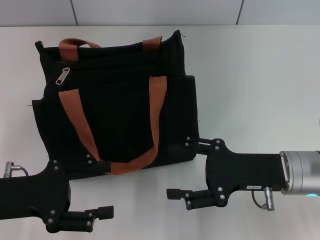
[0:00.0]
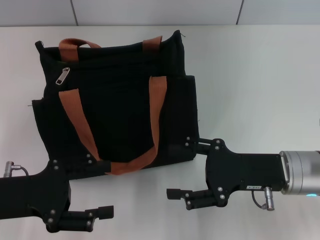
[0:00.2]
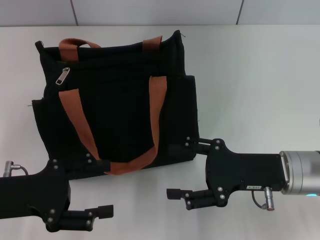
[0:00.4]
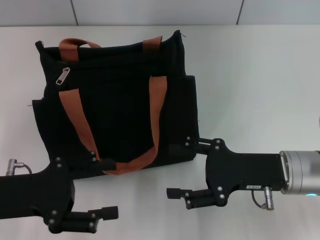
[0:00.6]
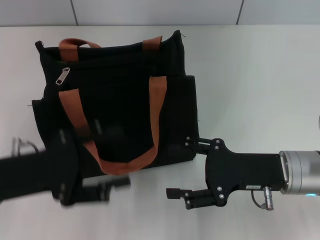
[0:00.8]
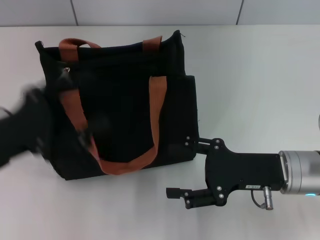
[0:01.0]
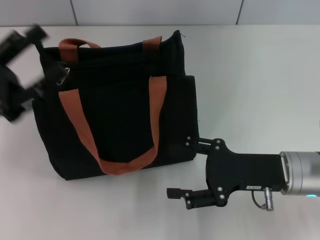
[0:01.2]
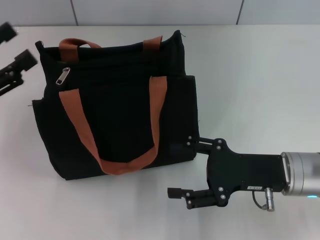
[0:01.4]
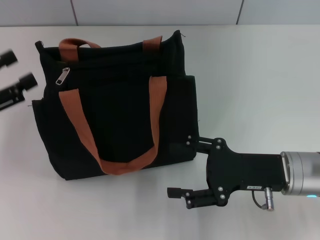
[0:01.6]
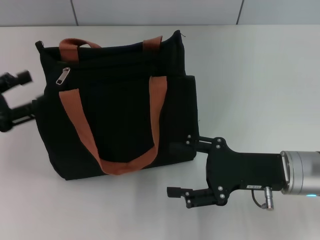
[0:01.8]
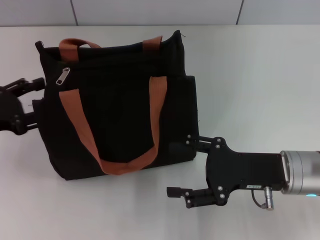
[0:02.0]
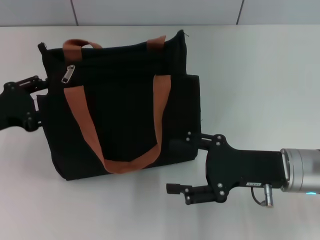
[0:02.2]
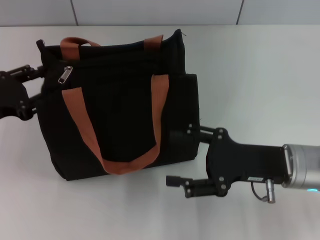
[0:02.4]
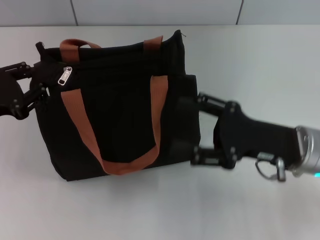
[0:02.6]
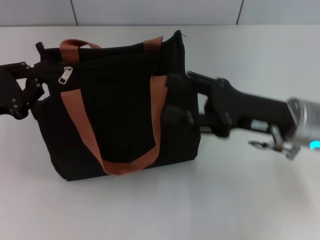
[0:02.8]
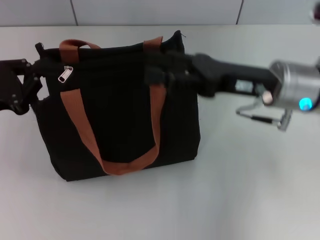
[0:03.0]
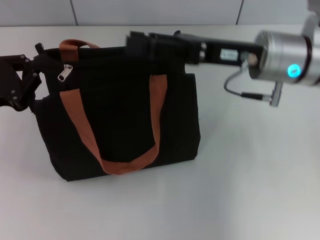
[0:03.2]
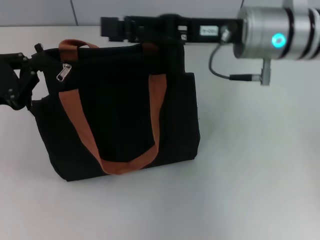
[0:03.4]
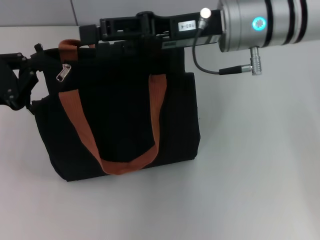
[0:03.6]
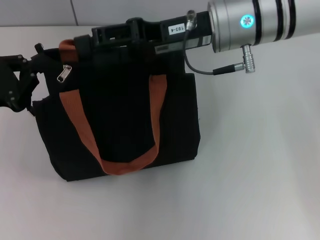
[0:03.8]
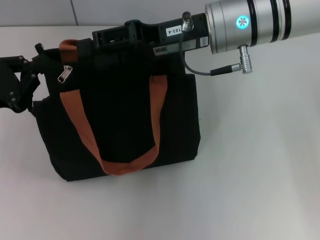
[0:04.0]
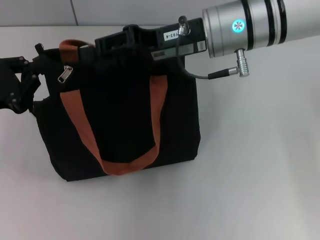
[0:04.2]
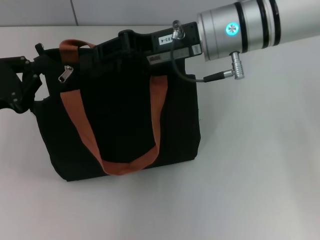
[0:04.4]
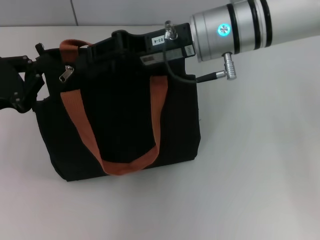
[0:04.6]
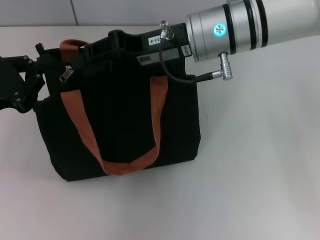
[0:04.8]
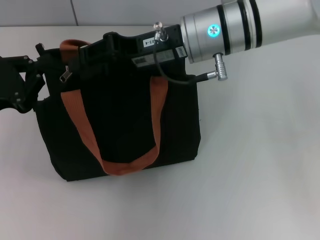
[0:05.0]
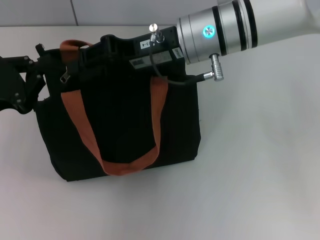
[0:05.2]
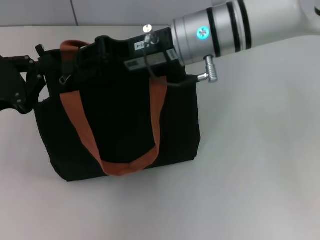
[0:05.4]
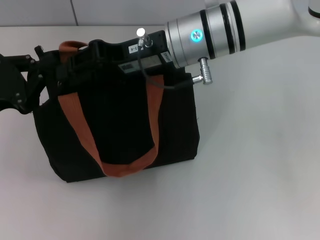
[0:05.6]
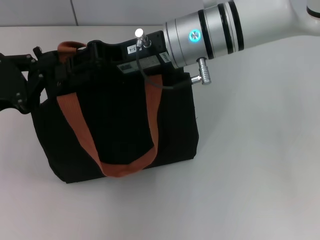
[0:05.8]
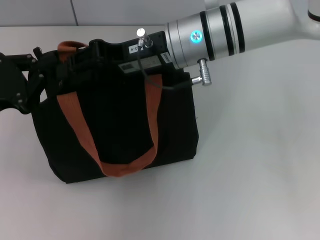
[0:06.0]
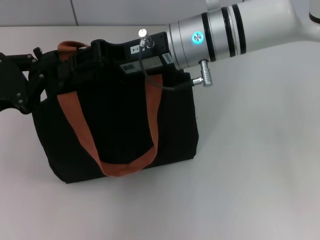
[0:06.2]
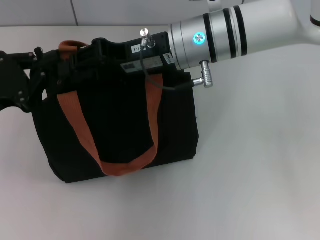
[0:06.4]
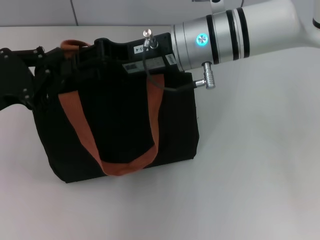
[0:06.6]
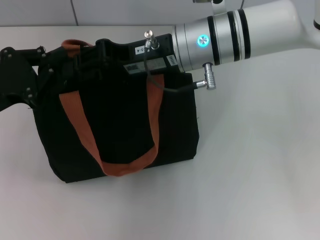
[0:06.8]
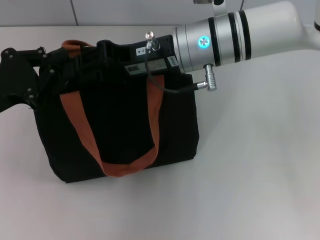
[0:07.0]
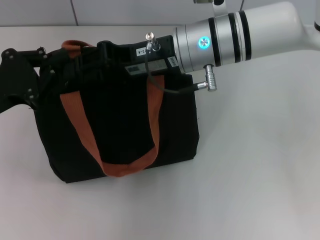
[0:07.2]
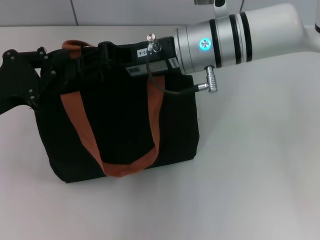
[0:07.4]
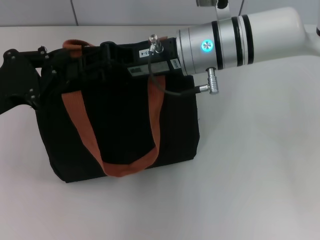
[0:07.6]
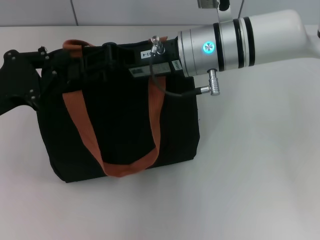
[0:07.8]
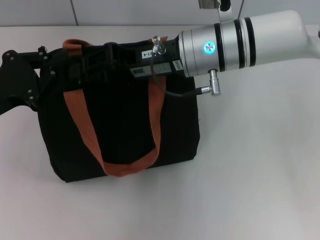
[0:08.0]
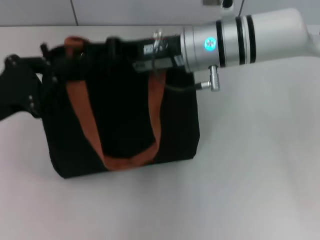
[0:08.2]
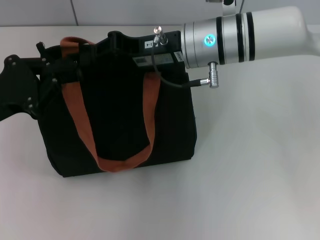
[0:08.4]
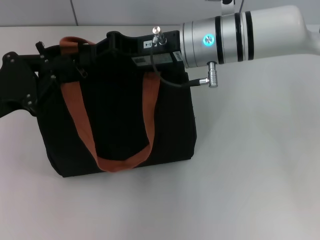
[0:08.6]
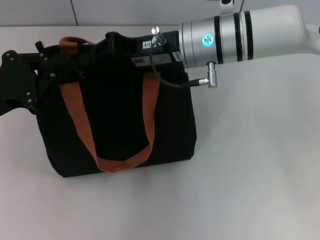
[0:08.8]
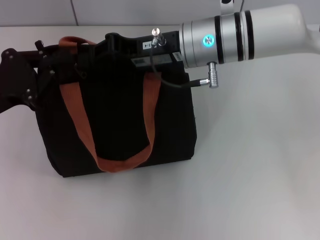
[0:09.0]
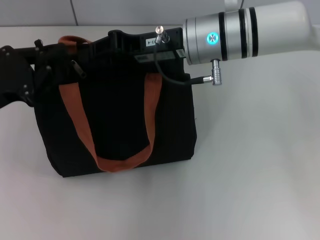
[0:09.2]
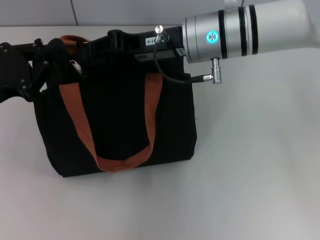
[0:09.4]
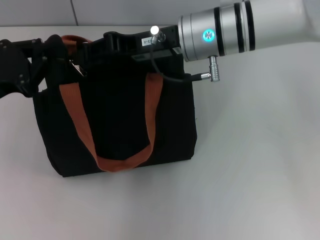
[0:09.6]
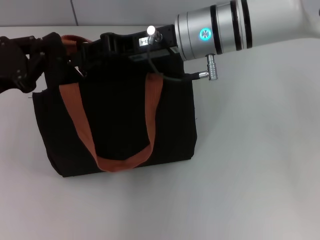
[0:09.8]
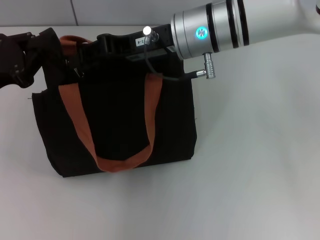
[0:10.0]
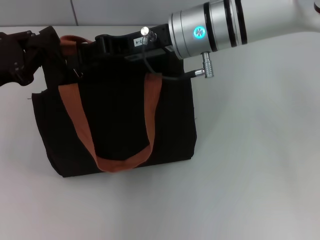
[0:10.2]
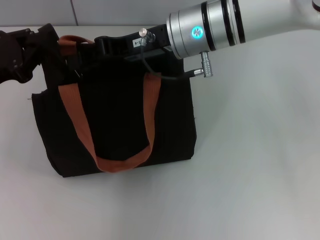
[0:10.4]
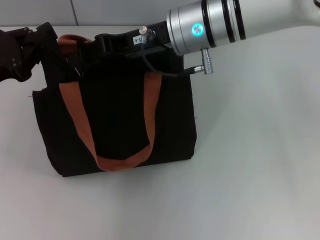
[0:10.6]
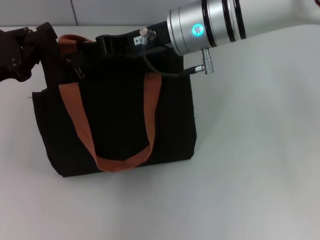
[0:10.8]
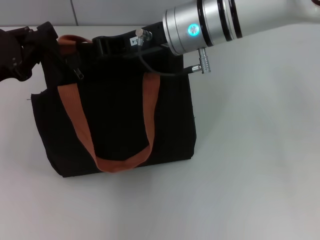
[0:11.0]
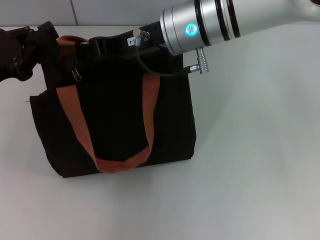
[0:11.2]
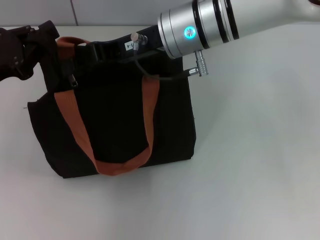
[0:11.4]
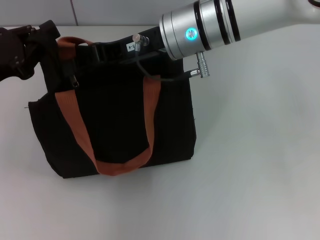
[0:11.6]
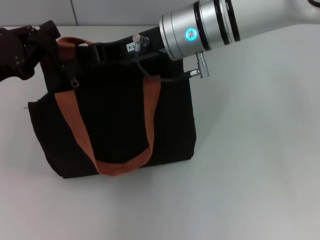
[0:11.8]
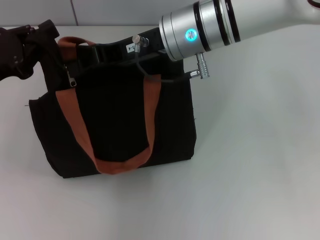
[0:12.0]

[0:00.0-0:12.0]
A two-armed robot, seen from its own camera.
0:00.0 to 0:01.6: The left gripper travels to the left by roughly 5 cm.
0:01.6 to 0:03.0: The right gripper goes some 10 cm upward and forward. Meanwhile the left gripper closes its fingers.
0:03.0 to 0:04.4: The right gripper travels to the left and forward by roughly 10 cm, and closes.
0:04.4 to 0:07.6: The grippers make only small movements.
0:07.6 to 0:09.0: Neither gripper changes place.
0:09.0 to 0:12.0: There are only small adjustments of the grippers.

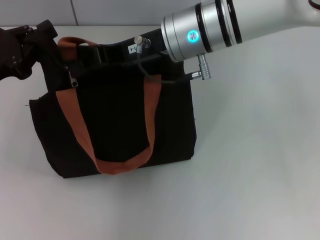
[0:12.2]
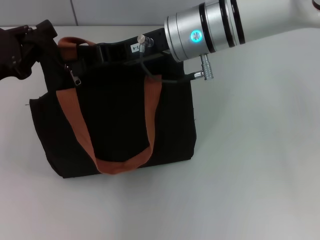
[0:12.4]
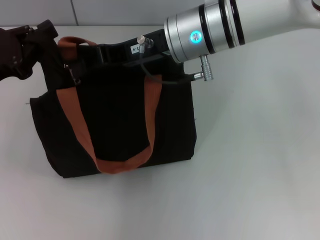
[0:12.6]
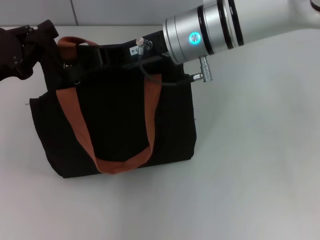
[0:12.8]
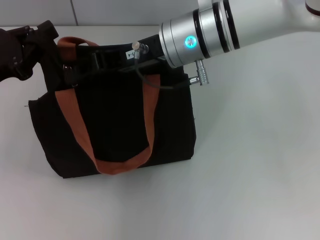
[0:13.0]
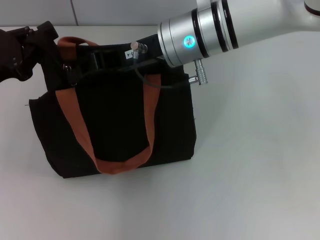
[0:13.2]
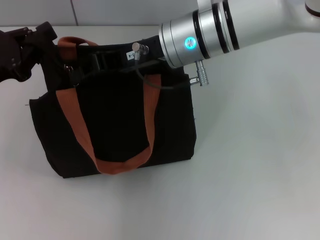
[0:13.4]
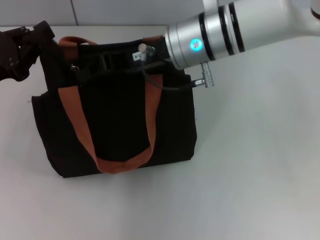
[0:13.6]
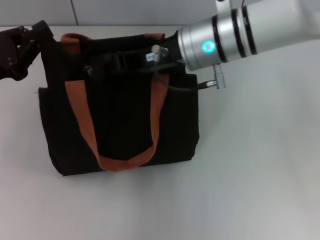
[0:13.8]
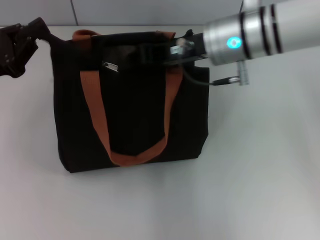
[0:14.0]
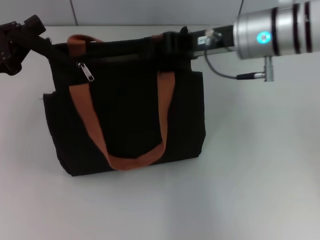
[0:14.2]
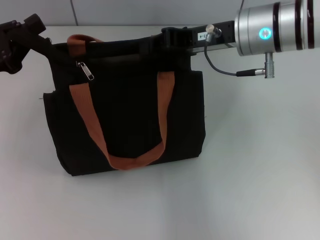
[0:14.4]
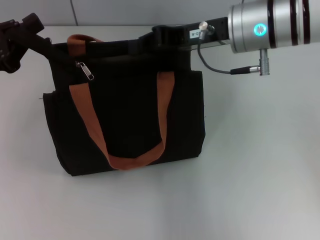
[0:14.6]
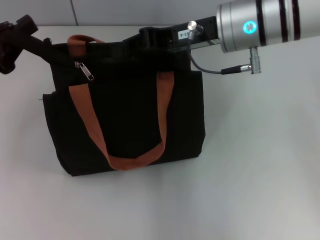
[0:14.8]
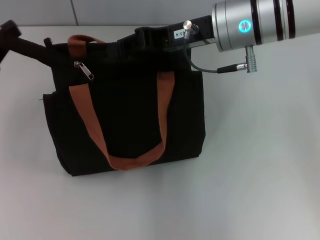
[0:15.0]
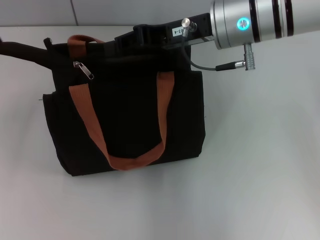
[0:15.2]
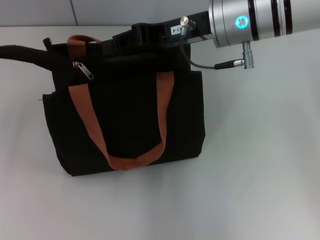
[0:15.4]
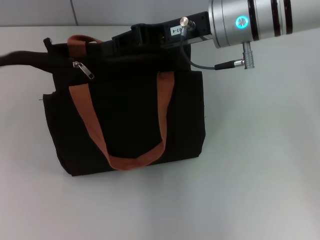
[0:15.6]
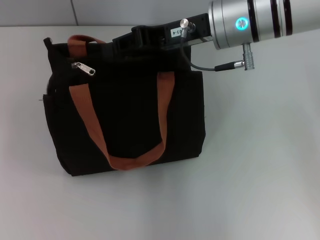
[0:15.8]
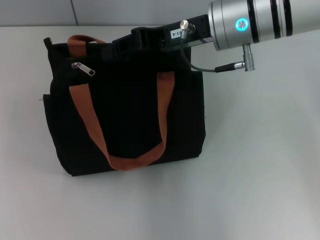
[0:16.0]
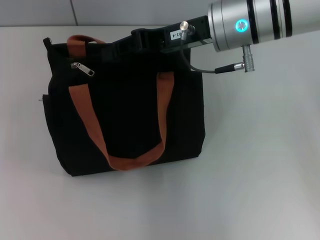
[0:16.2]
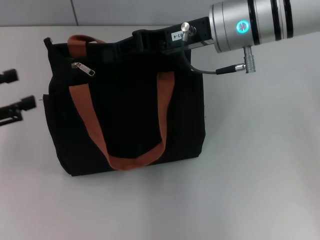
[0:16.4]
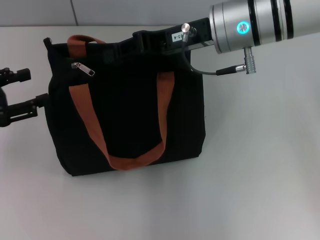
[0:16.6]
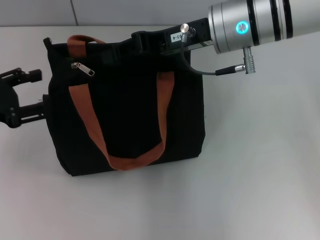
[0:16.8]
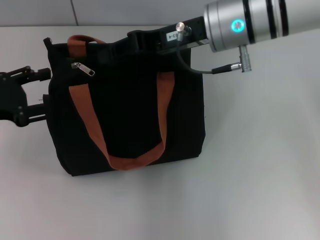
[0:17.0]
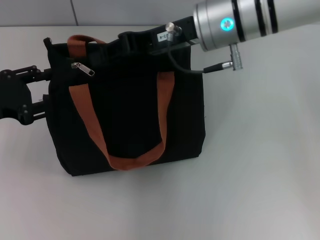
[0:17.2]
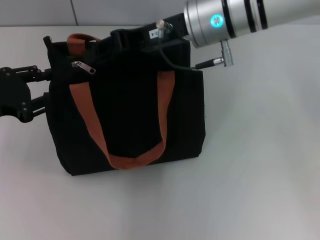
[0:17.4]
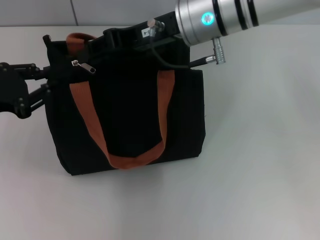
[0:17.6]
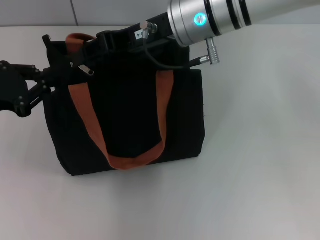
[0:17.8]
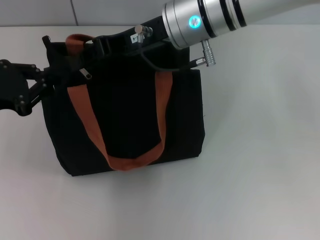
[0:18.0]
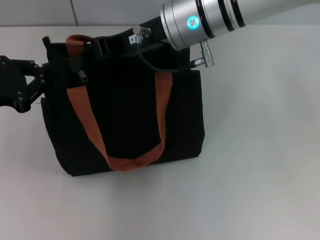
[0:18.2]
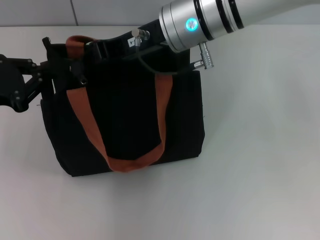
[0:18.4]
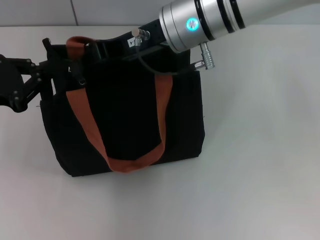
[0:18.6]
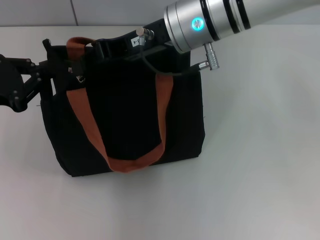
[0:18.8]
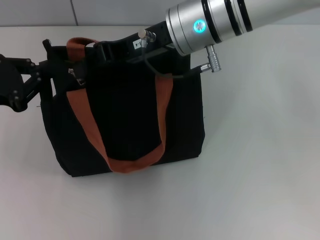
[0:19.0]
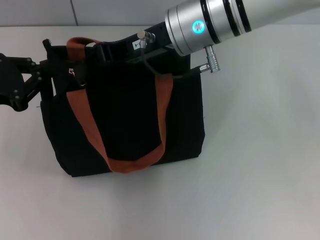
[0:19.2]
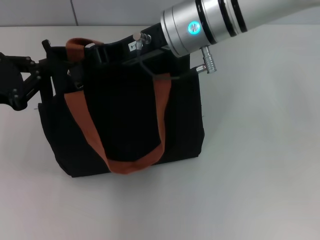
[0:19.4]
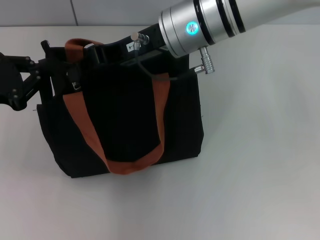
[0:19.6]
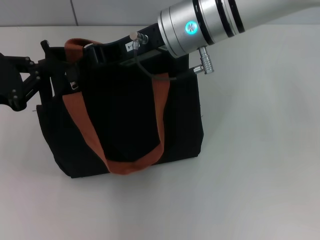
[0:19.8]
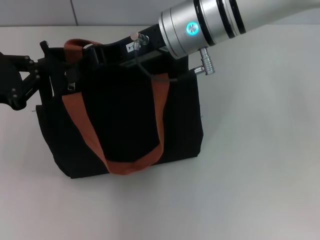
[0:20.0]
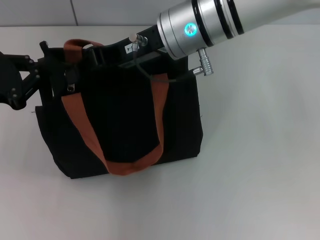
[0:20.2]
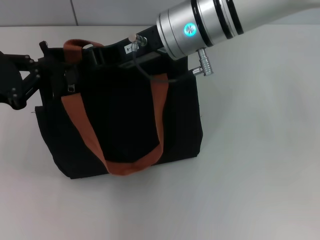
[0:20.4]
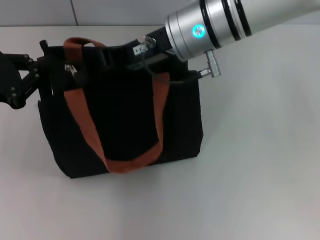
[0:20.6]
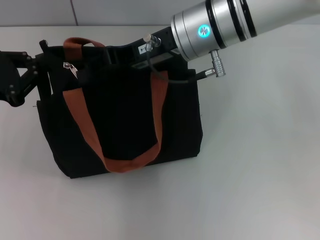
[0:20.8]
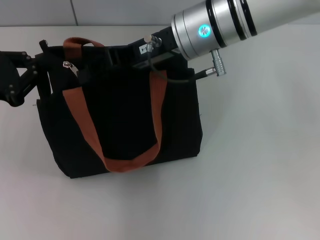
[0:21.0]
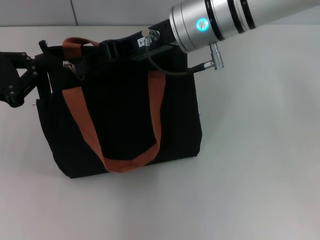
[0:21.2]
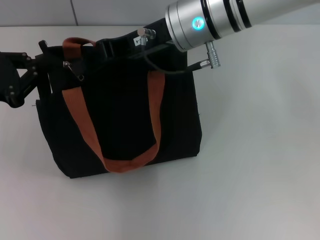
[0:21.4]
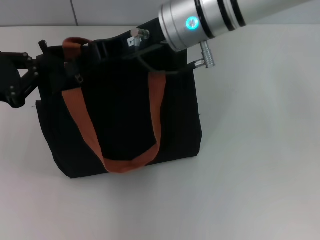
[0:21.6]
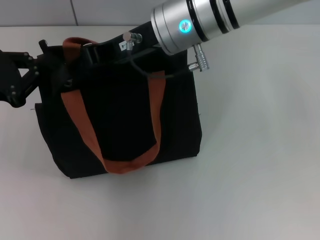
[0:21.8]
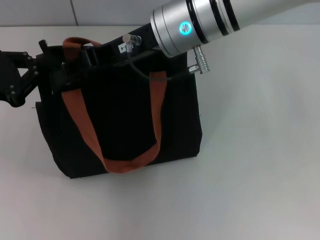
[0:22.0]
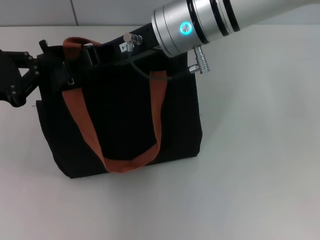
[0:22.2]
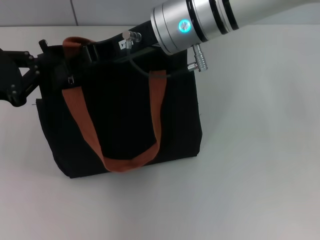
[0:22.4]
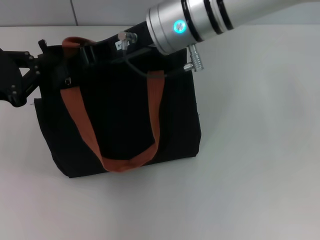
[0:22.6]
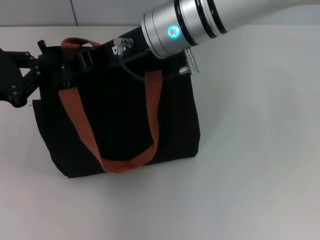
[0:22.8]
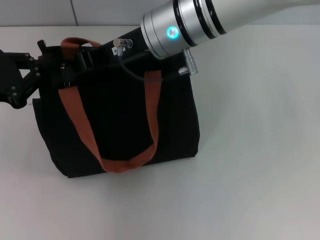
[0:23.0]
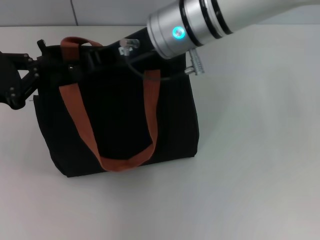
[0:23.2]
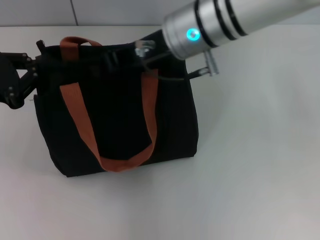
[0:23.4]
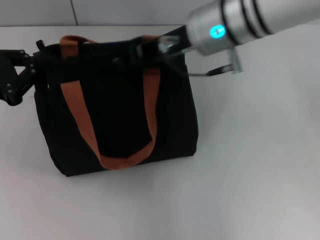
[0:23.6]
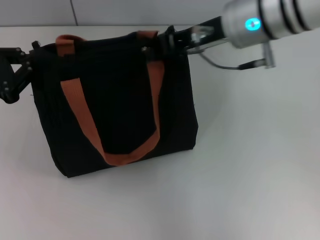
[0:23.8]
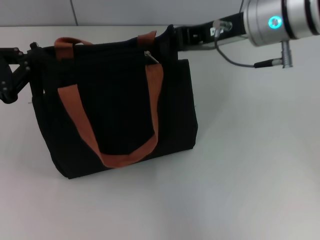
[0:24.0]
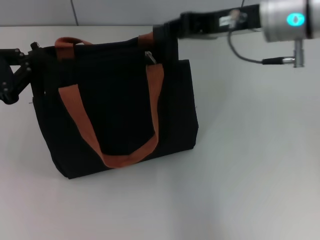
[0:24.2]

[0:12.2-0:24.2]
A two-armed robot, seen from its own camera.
Step, 0:12.2 to 0:24.0: Pull up the zipper with your right hand.
0:12.2 to 0:13.8: The grippers make only small movements.
0:13.8 to 0:15.2: The left gripper goes about 5 cm to the left.
0:15.2 to 0:16.6: The left gripper reaches some 5 cm to the left, then returns, and opens its fingers.
0:16.6 to 0:18.2: The left gripper closes its fingers, while the right gripper goes approximately 5 cm to the left.
0:18.2 to 0:19.8: Both grippers stay put.
0:19.8 to 0:22.6: The grippers make only small movements.
0:22.6 to 0:24.2: The right gripper moves to the right, roughly 15 cm.
